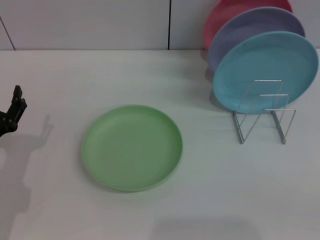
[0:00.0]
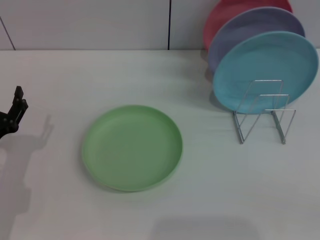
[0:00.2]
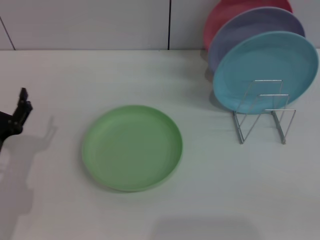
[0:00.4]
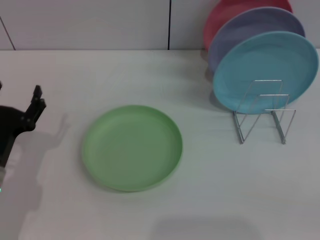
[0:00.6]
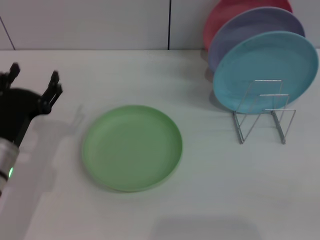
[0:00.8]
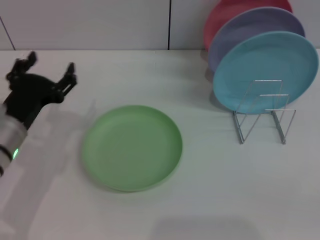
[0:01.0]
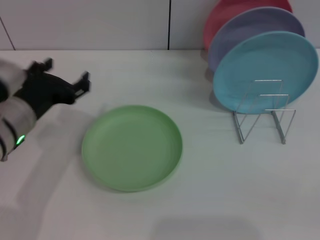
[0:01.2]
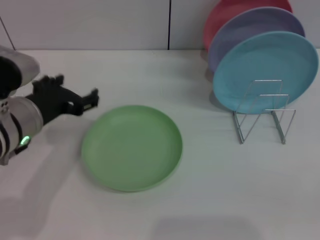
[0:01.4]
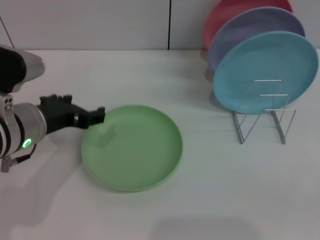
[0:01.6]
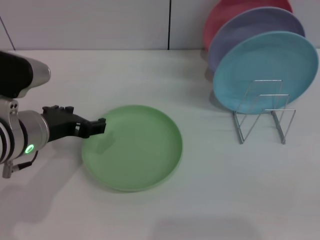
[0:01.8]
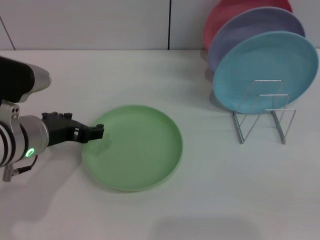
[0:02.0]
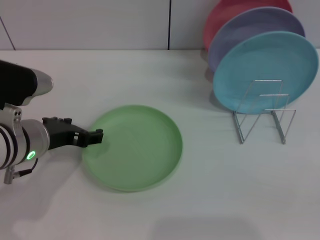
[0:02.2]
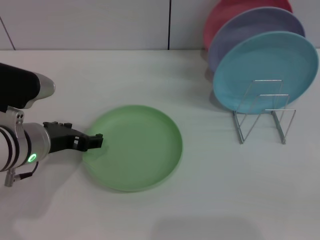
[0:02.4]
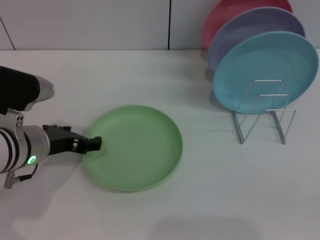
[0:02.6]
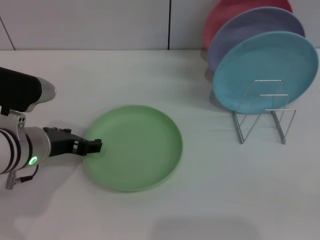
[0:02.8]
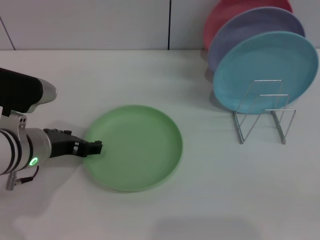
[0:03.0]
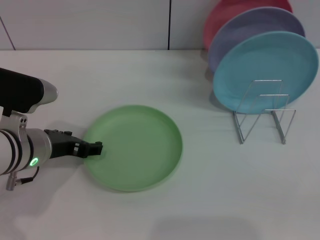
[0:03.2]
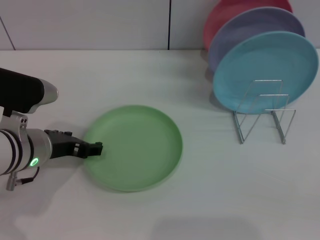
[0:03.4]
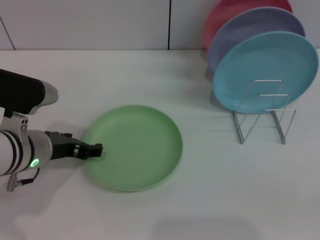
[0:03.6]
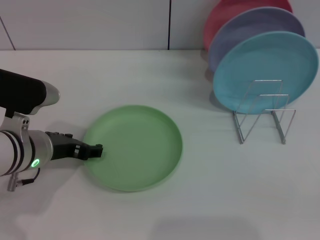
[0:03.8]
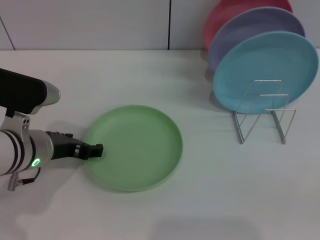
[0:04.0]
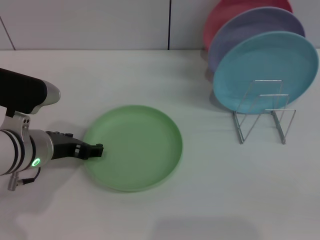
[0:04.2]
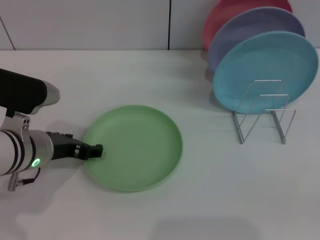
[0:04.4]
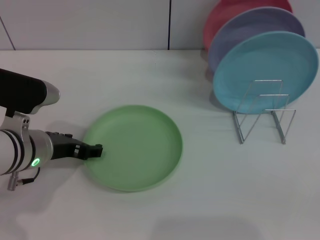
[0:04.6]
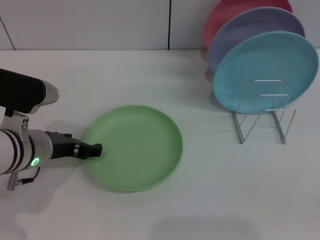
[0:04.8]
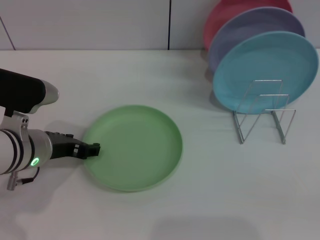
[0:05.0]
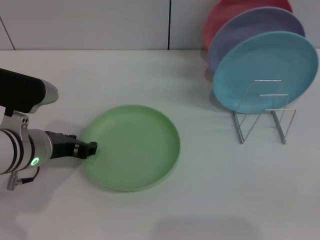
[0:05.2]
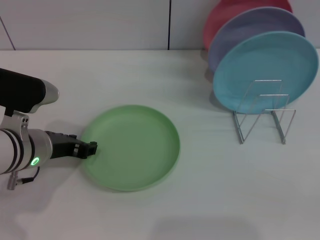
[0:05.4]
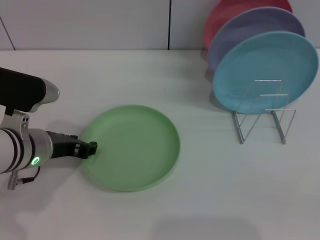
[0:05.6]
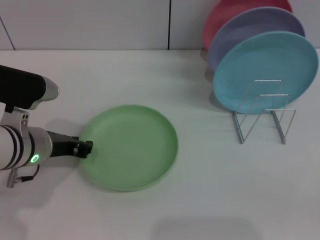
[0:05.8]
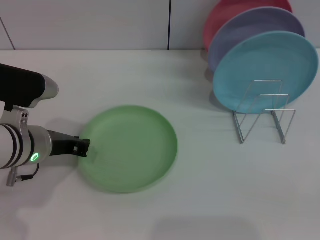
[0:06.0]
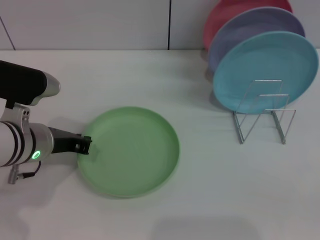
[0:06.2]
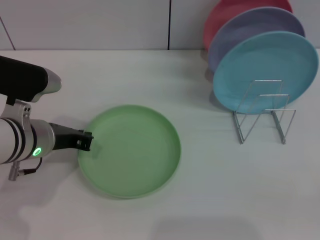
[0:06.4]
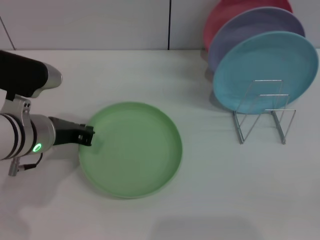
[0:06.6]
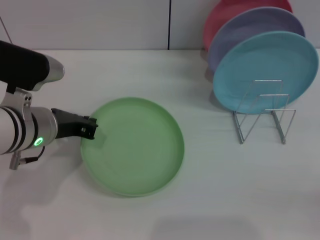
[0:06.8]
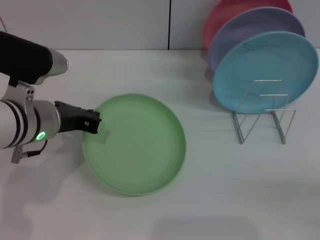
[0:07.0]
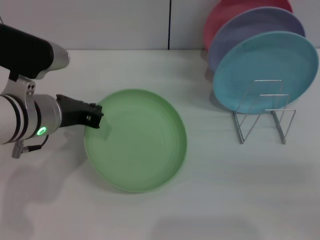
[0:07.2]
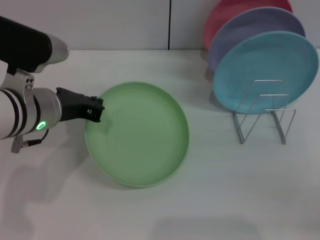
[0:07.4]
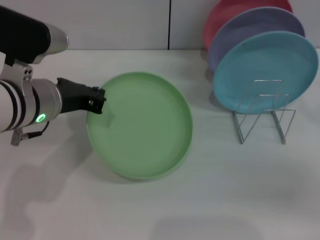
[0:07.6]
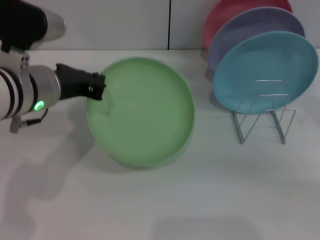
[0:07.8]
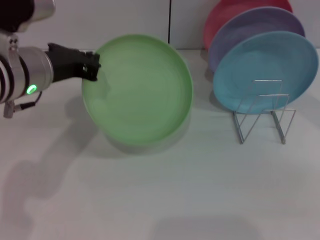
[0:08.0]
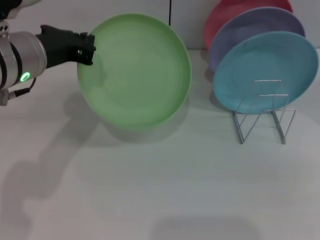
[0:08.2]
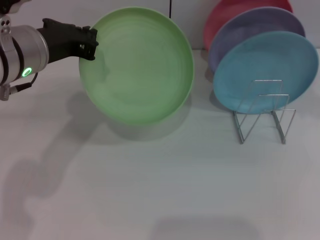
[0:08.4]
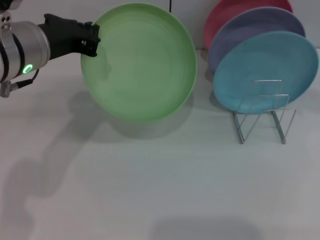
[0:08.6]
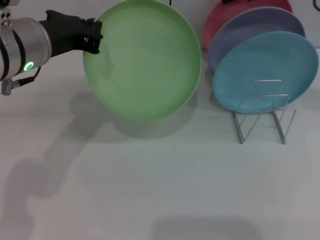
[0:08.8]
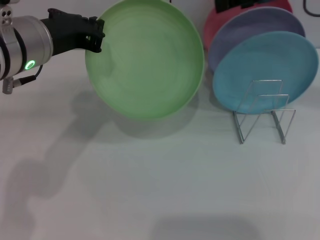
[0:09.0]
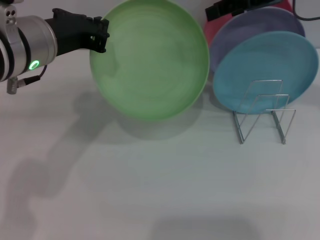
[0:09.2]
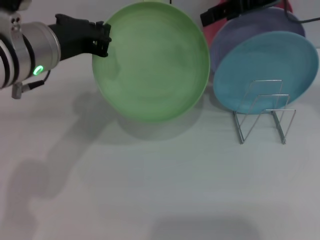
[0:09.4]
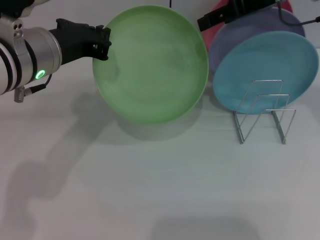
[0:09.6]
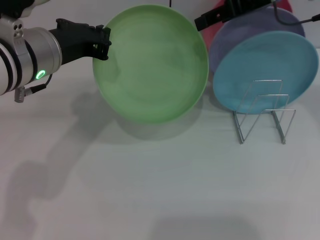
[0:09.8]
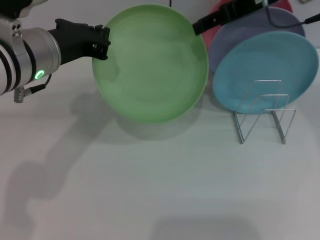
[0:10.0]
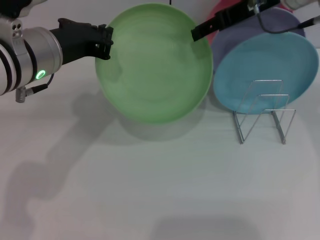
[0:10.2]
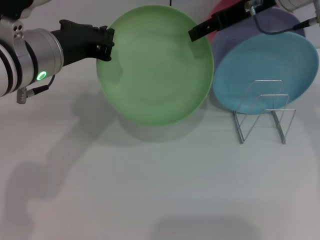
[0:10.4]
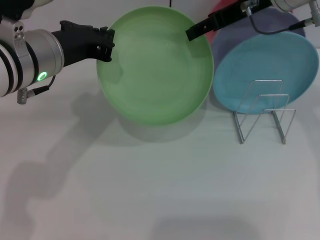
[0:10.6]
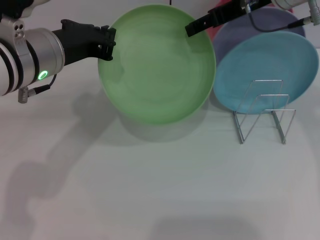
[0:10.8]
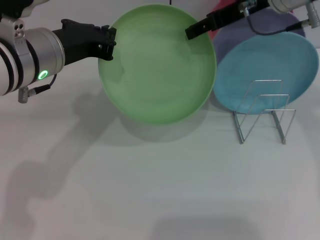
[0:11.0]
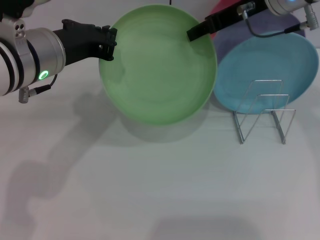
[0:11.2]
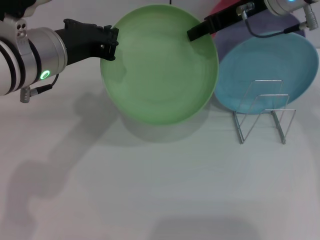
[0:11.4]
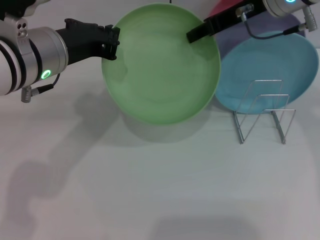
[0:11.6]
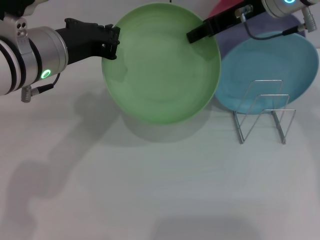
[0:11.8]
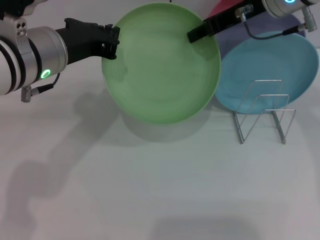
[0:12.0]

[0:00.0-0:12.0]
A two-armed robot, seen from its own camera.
Task of the whole recording: Grip the plate with one hand, pass it to the other, then set it on the shelf.
Step, 0:00.0 to 0:08.2: Pick up the plate with the left gripper.
0:00.0 to 0:01.6: The left gripper heads upward, to the right and forward, covering about 15 cm.
0:01.6 to 0:03.0: The grippers make only small movements.
0:03.0 to 0:04.4: Neither gripper changes place.
0:04.4 to 0:06.0: The left gripper closes its fingers.
0:06.0 to 0:07.6: The right gripper shifts about 20 cm forward and upward. The left gripper moves upward, some 5 cm.
0:07.6 to 0:09.0: The right gripper is displaced upward, forward and to the left by about 20 cm. The left gripper moves upward, approximately 5 cm.
0:09.0 to 0:10.4: The right gripper moves roughly 5 cm.
0:10.4 to 0:12.0: The right gripper closes its fingers.

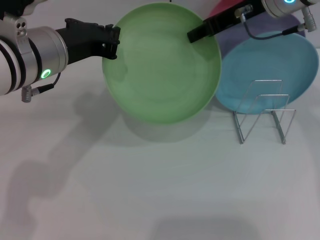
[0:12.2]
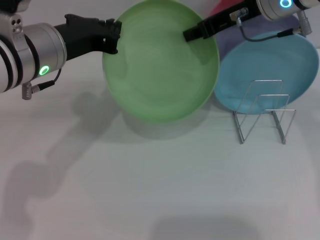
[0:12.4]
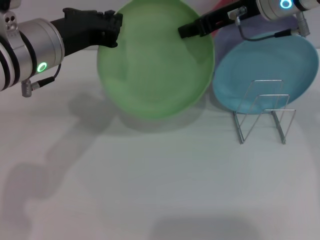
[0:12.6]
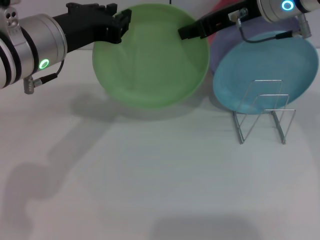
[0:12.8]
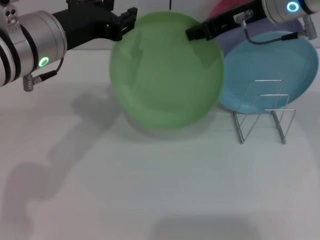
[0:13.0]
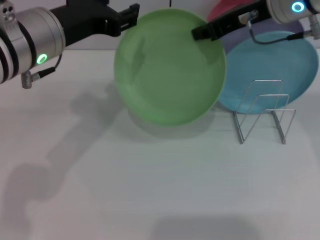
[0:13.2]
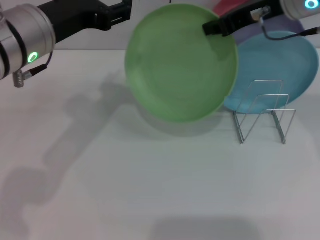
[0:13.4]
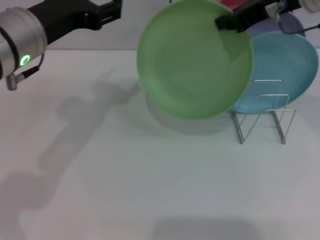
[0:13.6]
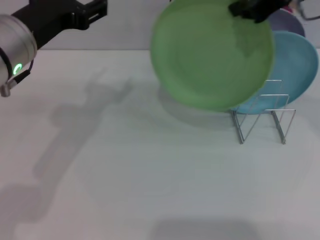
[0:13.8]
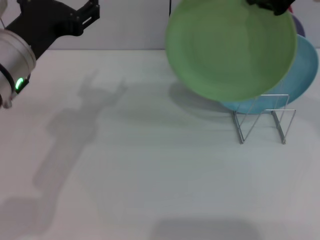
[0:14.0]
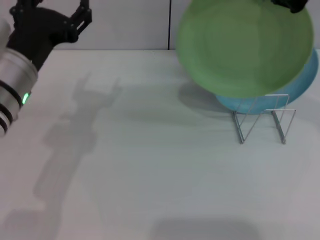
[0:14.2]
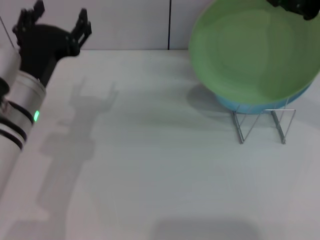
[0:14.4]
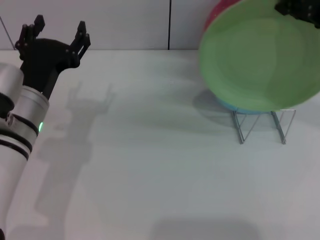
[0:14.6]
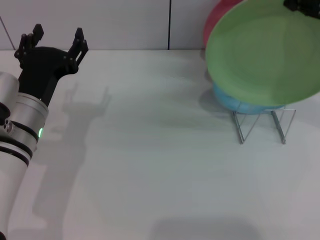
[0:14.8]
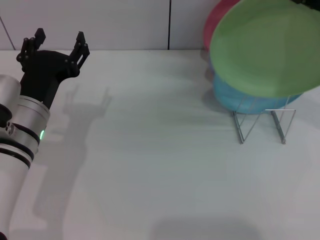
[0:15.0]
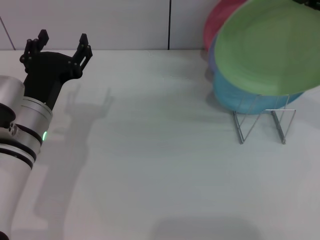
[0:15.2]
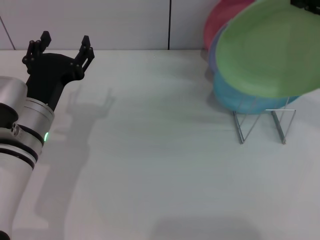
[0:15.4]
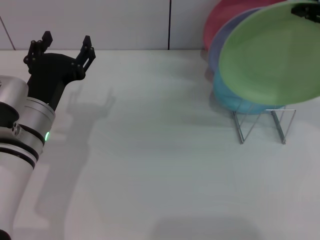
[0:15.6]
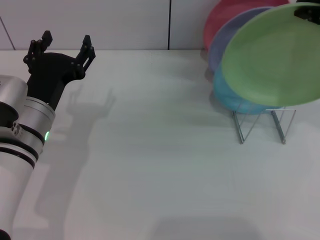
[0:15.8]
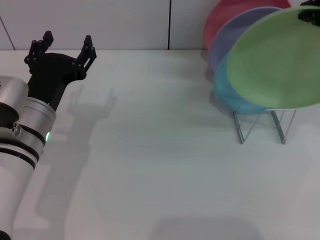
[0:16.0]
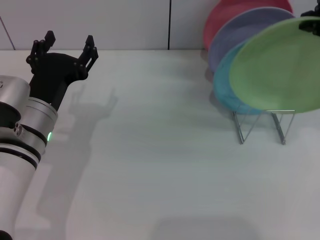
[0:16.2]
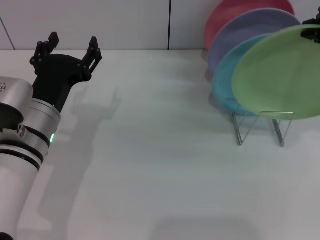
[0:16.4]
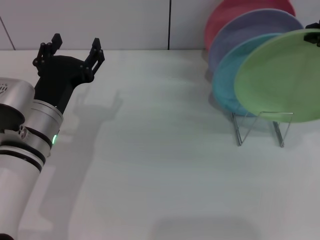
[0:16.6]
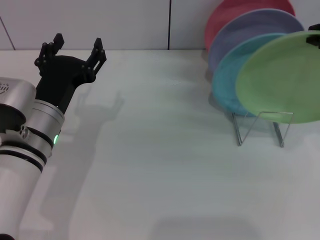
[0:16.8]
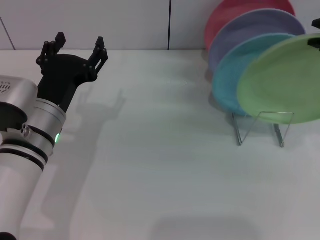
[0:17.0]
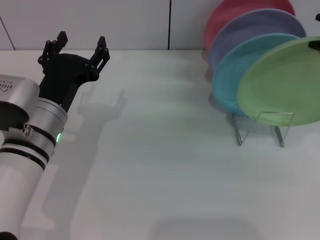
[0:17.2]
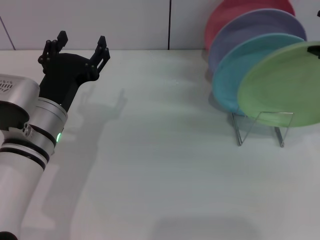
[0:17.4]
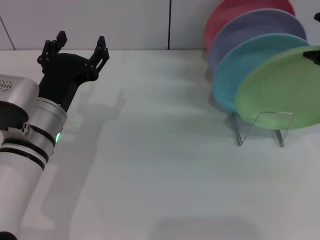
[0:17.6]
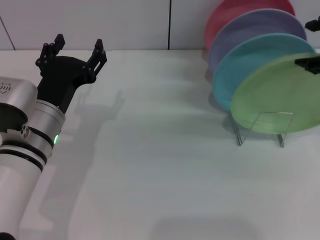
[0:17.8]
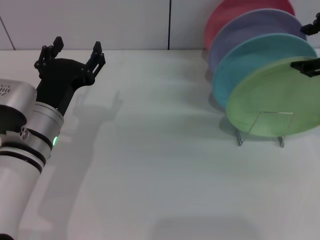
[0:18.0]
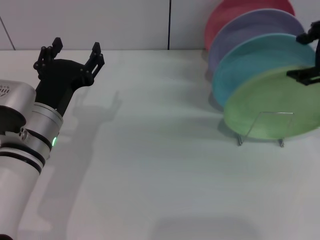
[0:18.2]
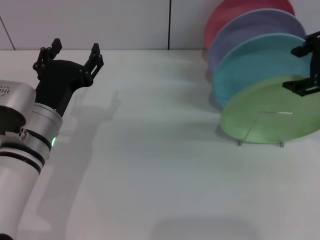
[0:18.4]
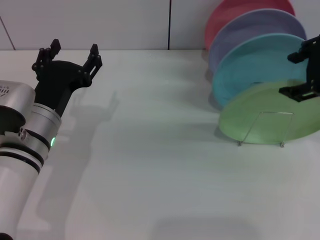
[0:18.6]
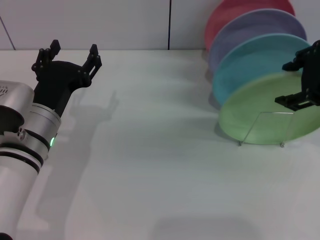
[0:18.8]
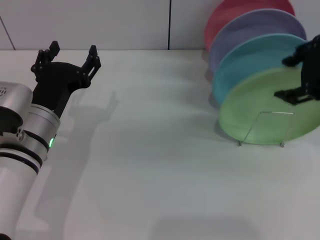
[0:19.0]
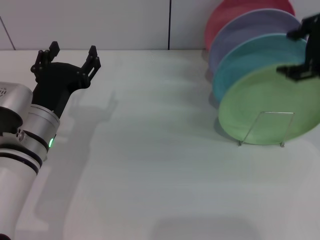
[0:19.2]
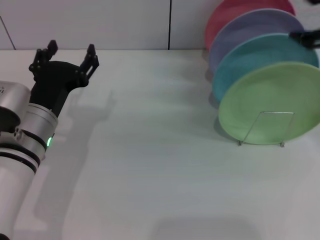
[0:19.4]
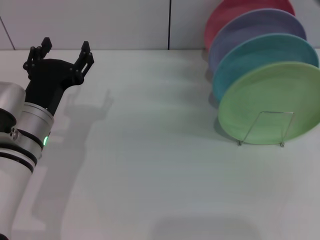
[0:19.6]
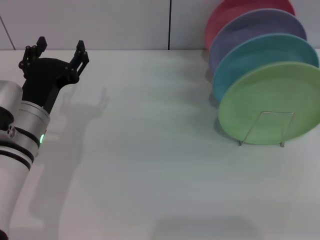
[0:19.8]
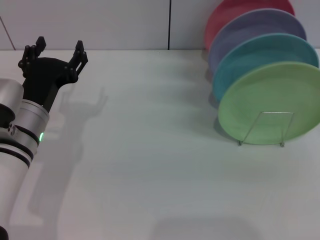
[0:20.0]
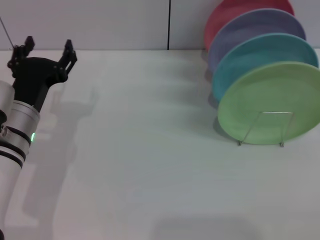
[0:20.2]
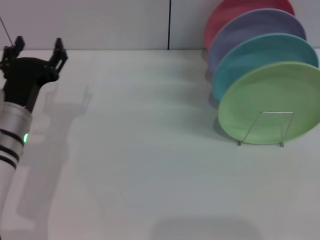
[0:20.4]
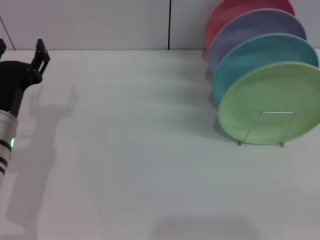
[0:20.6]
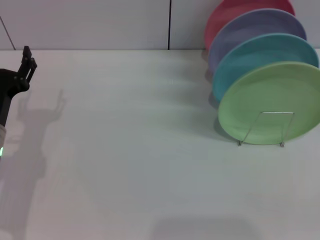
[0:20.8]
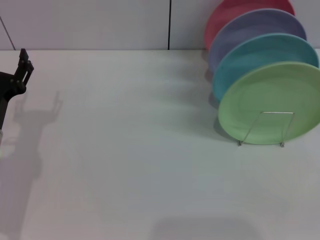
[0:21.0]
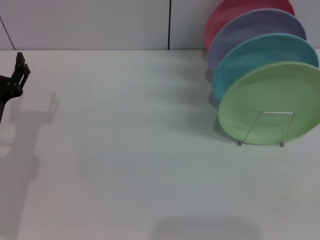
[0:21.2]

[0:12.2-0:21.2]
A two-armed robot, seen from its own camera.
Task of the whole recording: Grip the plate with one hand, pass it to the other, then set it on the shelf.
Step, 0:13.6 to 0:19.4: Place the plate on the shelf with the right gripper.
0:12.2 to 0:13.8: The left gripper opens. Meanwhile the right gripper shifts about 10 cm upward and backward.
0:13.8 to 0:15.2: The left gripper goes roughly 10 cm downward. Meanwhile the right gripper shifts about 5 cm backward.
0:15.2 to 0:16.6: The grippers move only a little.
0:16.6 to 0:18.2: The right gripper opens its fingers.
0:18.2 to 0:19.8: The right gripper shifts about 10 cm to the right.
0:19.8 to 0:21.2: The left gripper moves to the left, about 10 cm.
